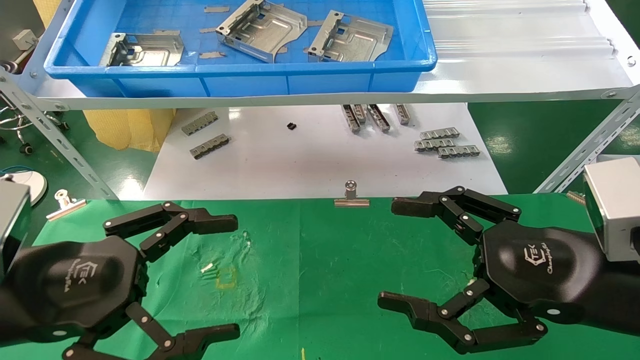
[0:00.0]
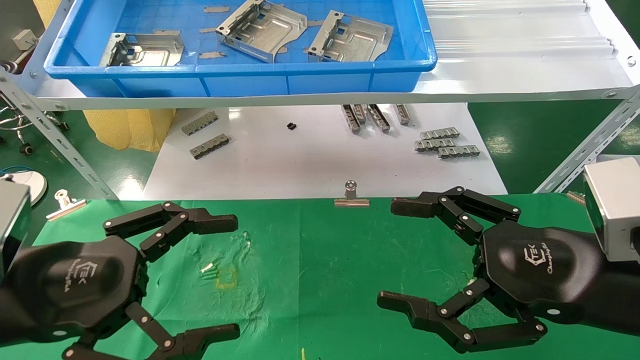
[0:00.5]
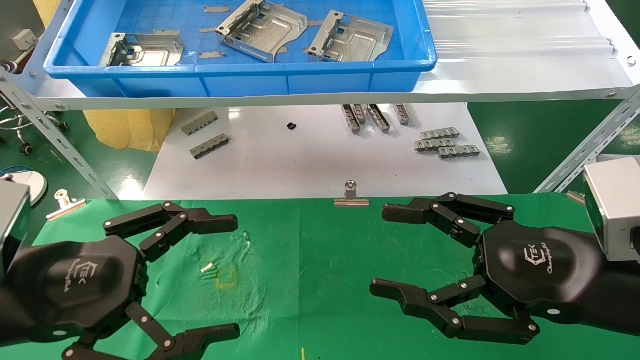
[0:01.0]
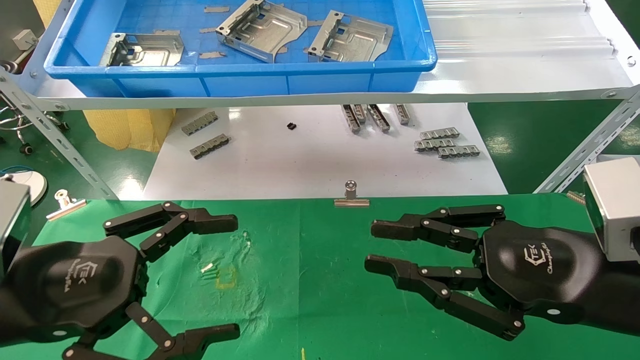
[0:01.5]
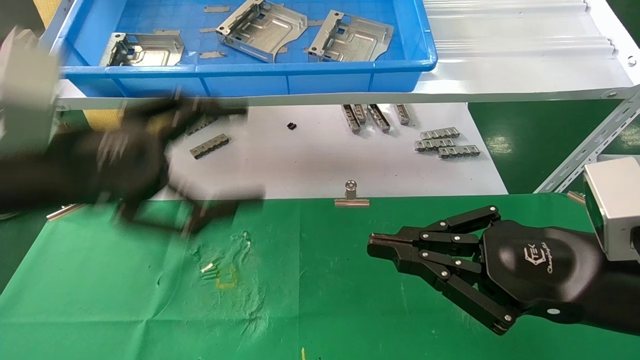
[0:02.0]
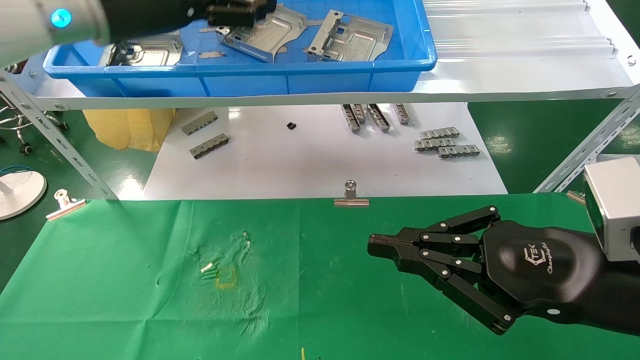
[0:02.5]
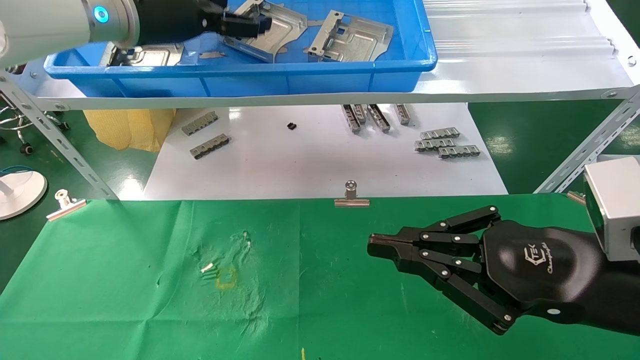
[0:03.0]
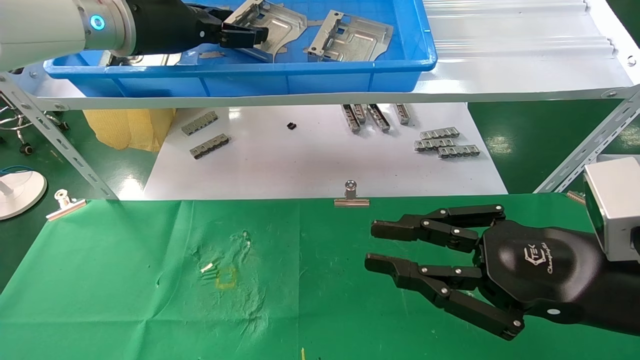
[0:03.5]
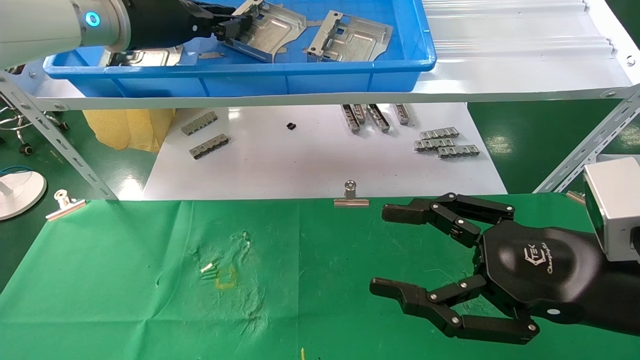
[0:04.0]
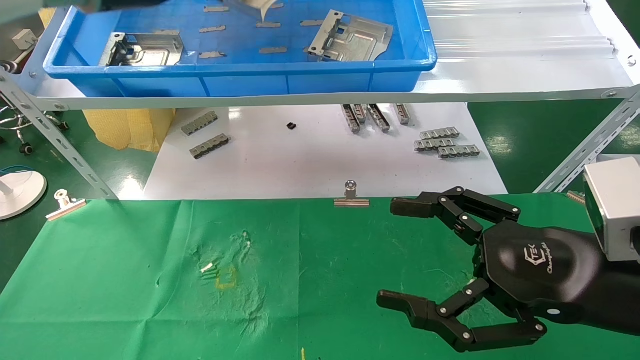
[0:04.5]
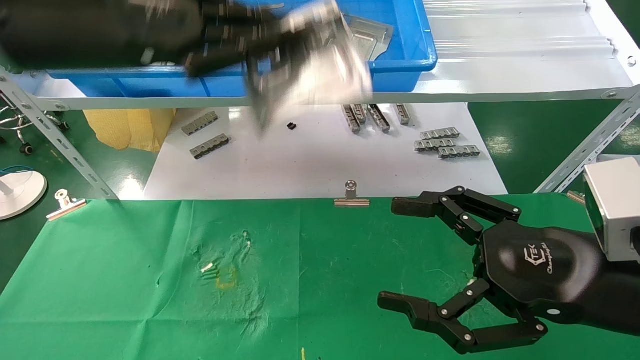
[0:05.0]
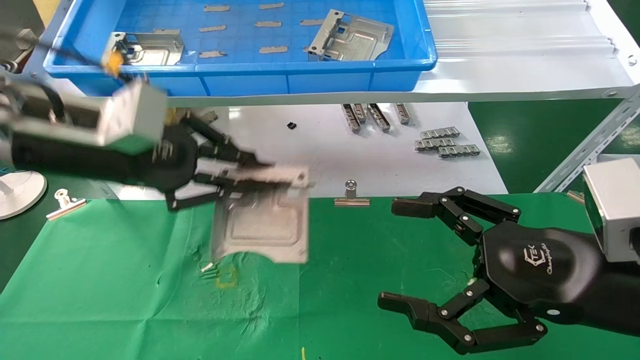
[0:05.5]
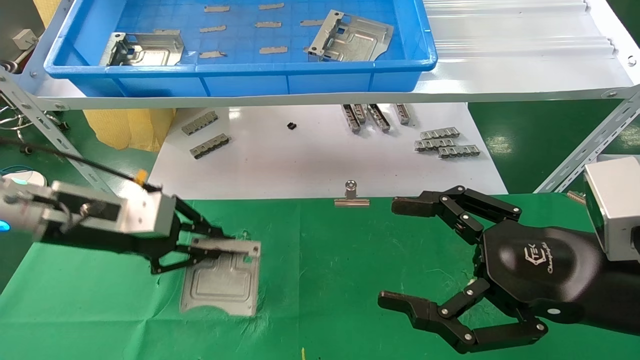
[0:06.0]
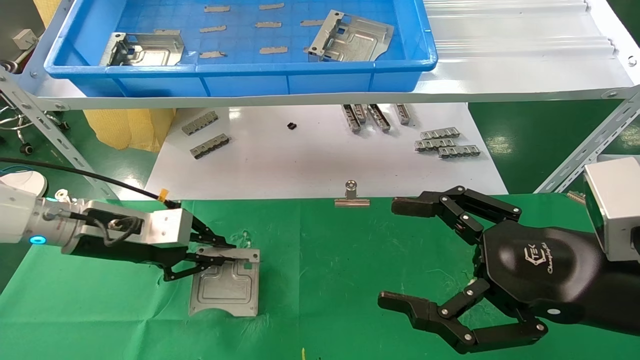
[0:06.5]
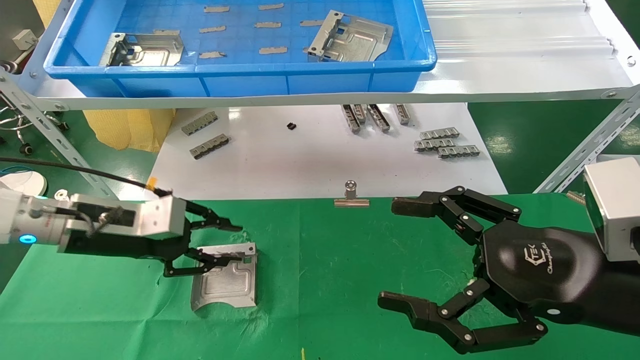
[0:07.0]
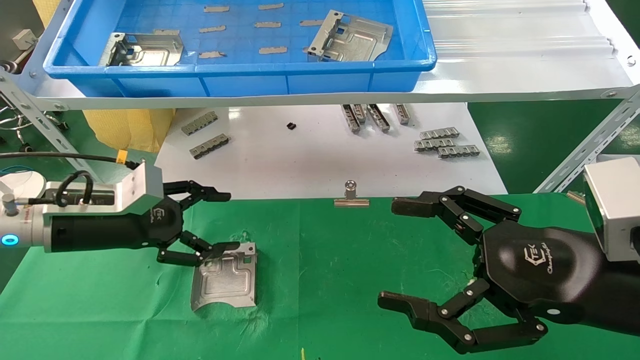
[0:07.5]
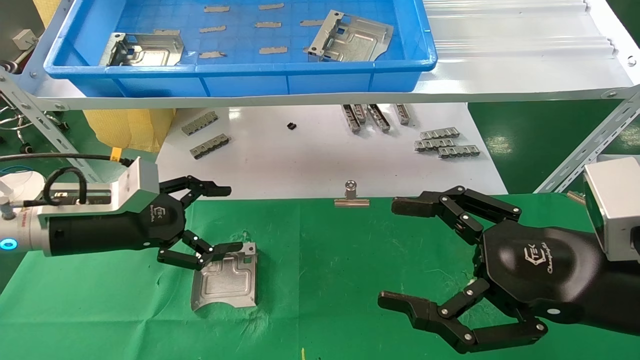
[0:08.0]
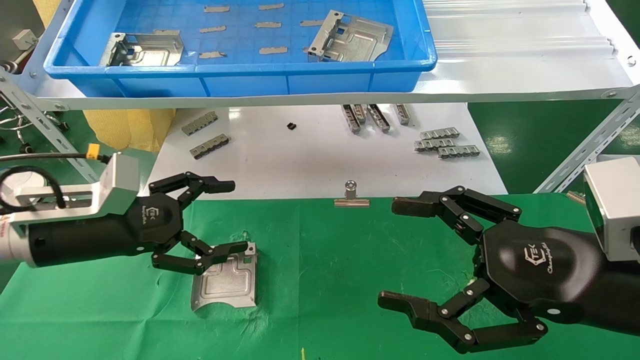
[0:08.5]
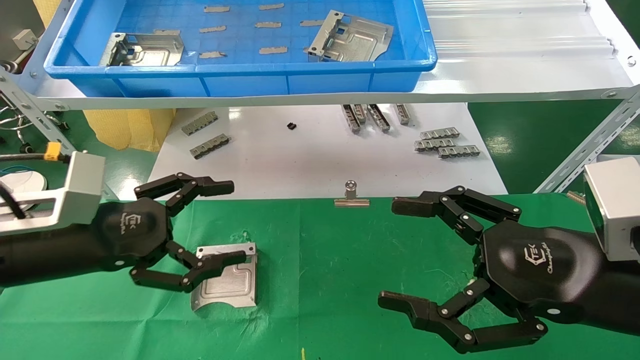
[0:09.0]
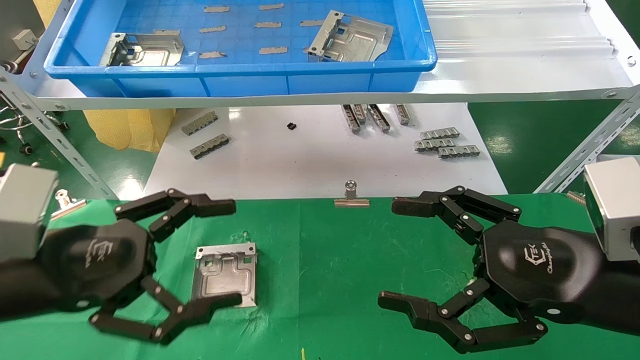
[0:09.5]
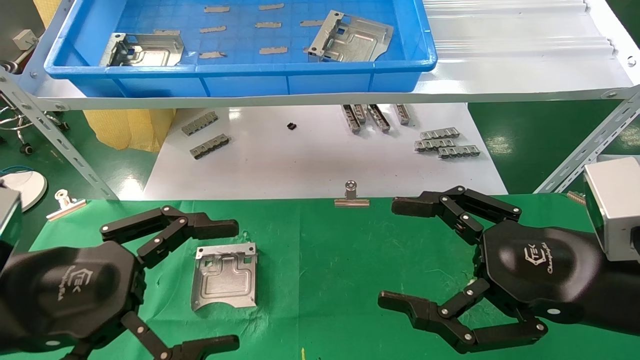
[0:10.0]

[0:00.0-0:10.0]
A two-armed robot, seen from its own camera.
Task of the whole recording: use the mechanical arm to pick up the parts and place them on the table.
Step, 0:02.5 to 0:04.0: Pick up the hard drive bracket from the feeding area.
Step, 0:04.5 to 0:06.5: Place the hard drive bracket into the box.
0:00.0 to 0:02.0: The left gripper goes roughly 15 cm upward and forward; the right gripper closes up.
0:02.0 to 0:04.0: The right gripper opens, while the left gripper moves forward and upward, approximately 20 cm, and closes its fingers.
0:04.0 to 0:06.0: The right gripper opens, while the left gripper moves downward, approximately 25 cm.
0:06.0 to 0:08.0: The left gripper opens up.
0:08.0 to 0:10.0: The left gripper is displaced backward by some 15 cm.
